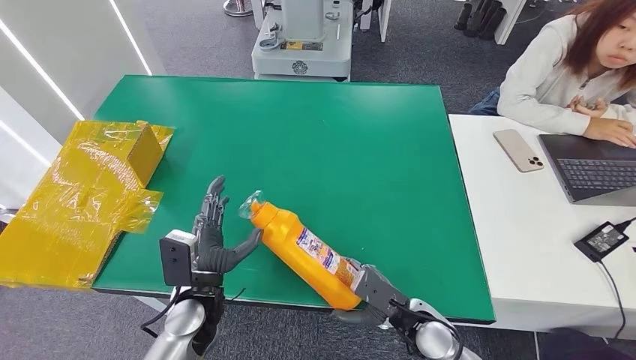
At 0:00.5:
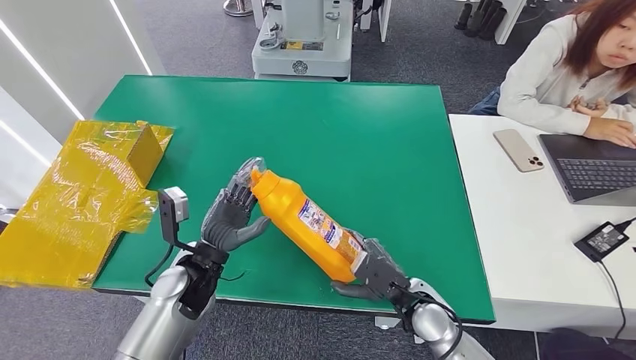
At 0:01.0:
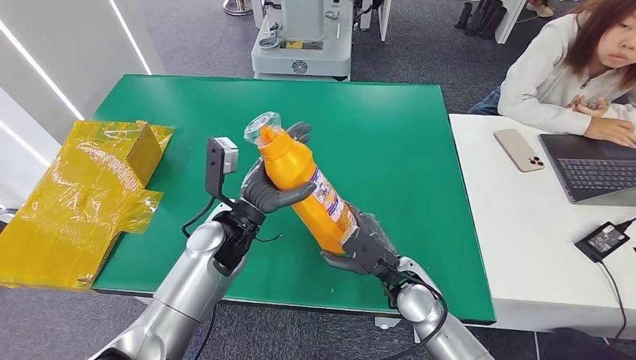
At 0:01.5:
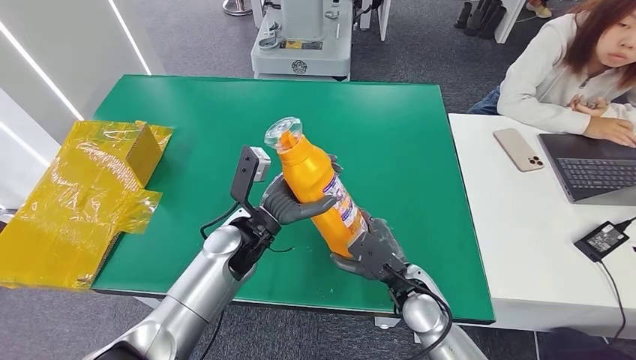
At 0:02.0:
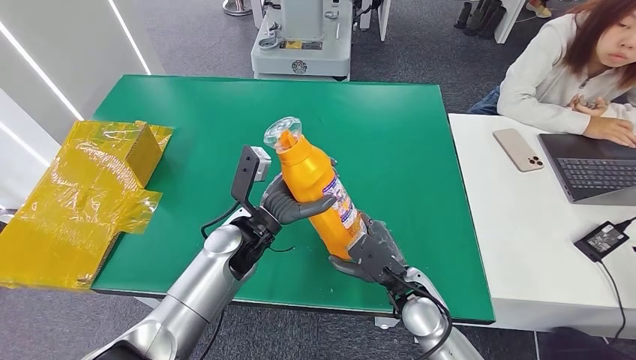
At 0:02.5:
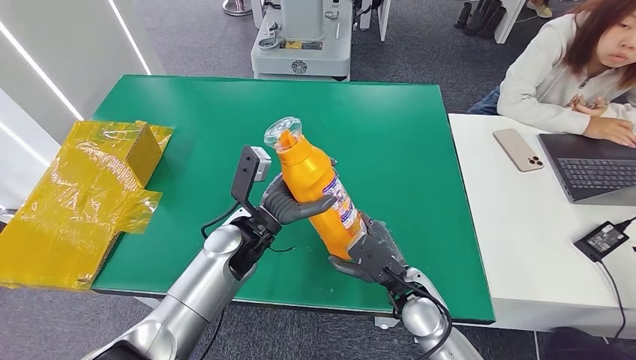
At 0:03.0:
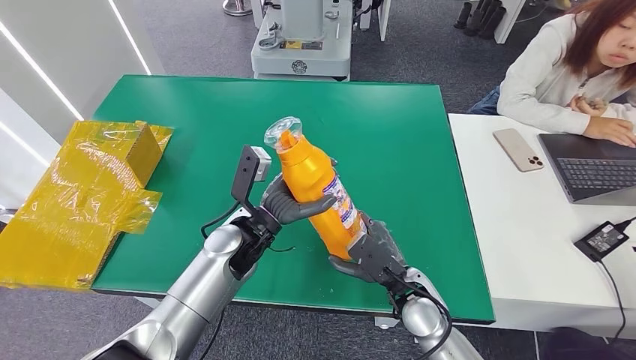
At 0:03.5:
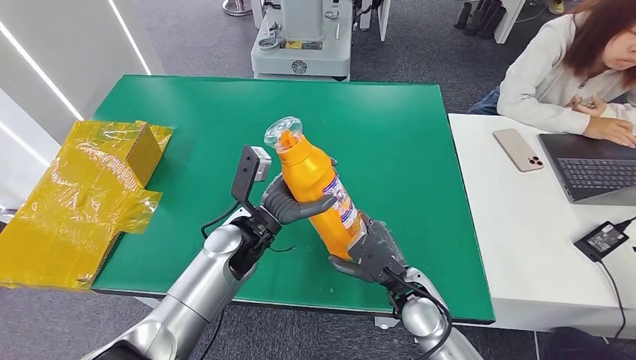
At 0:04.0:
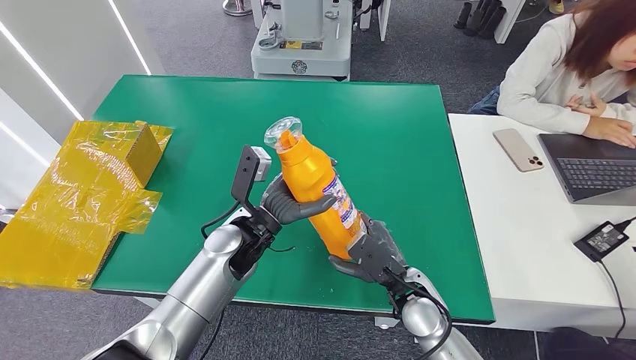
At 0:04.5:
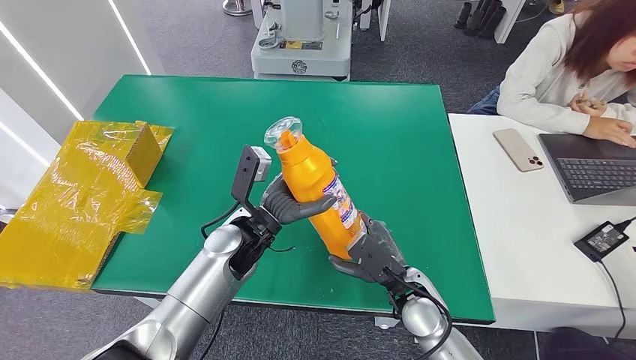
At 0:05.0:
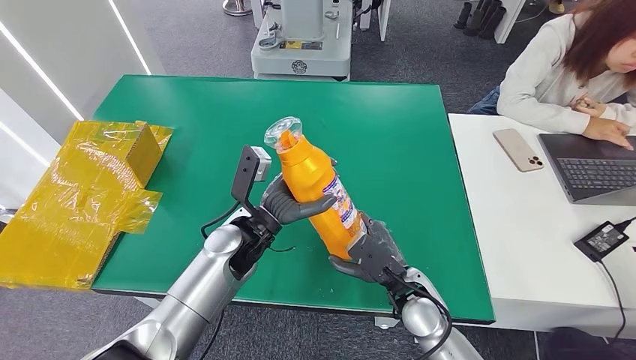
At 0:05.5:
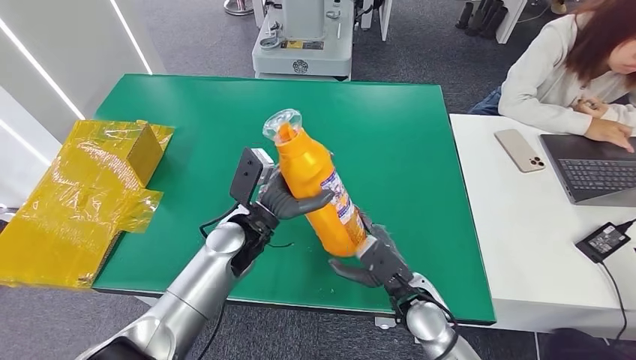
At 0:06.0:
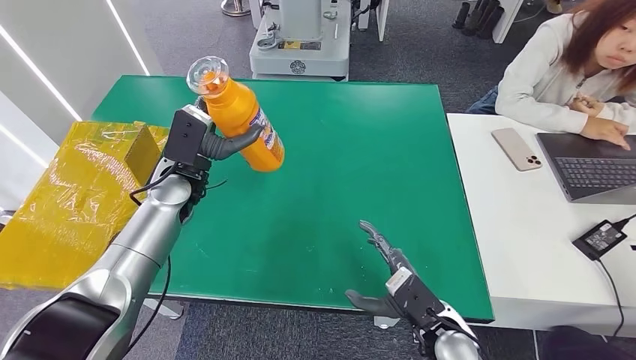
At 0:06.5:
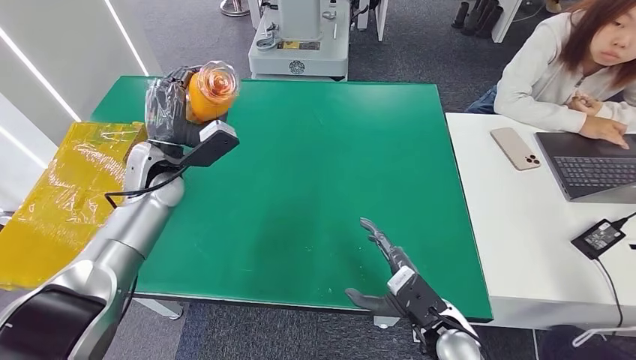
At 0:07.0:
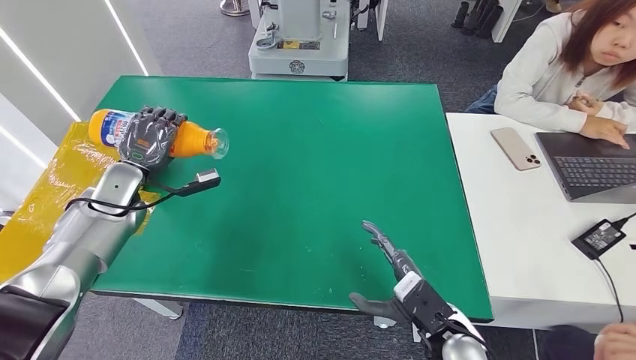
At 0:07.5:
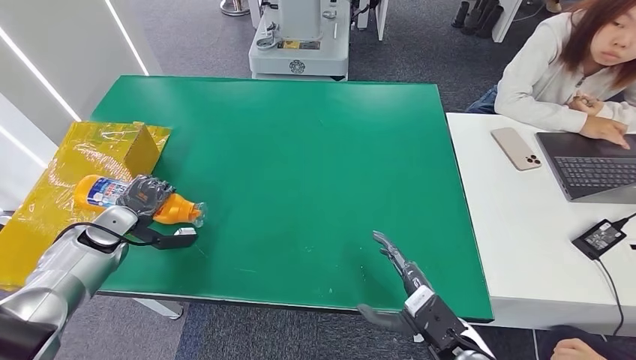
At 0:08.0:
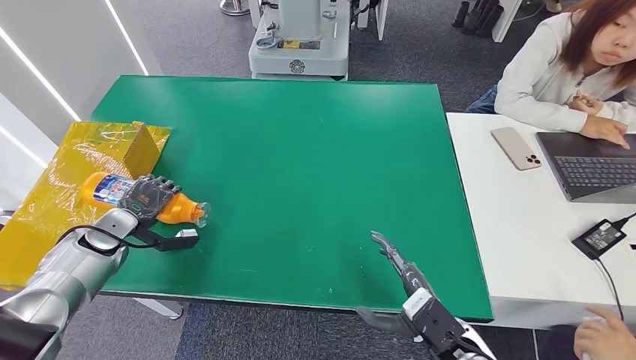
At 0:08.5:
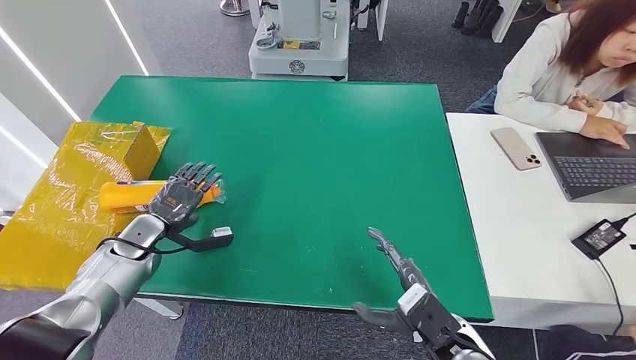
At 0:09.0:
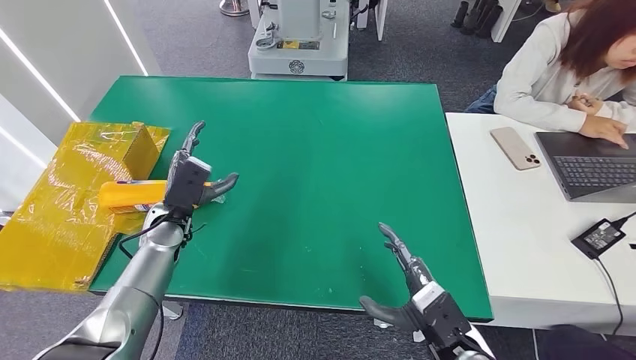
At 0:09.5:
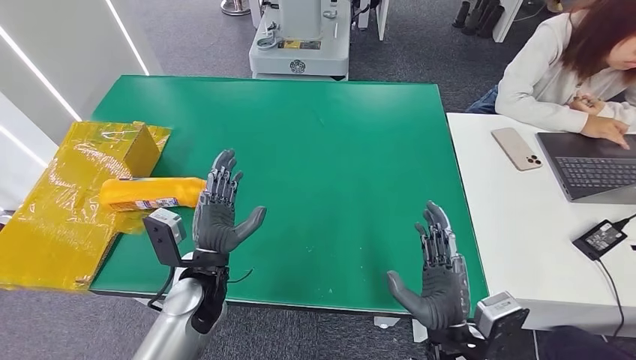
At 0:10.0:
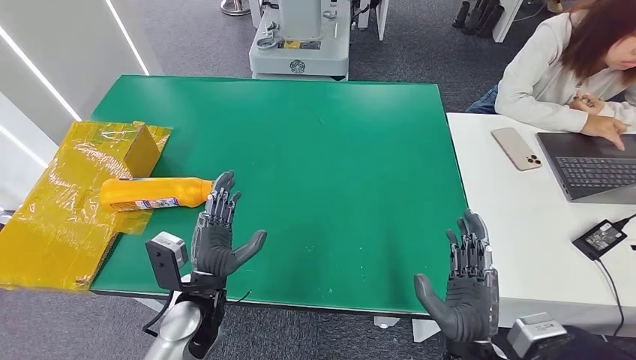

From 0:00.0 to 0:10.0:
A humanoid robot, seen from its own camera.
Step, from 0:02.5 to 0:10.0: Turn the bottle to the front side.
From 0:00.0 to 0:02.0: The right hand ends up roughly 5 cm from where it was, while the left hand travels forward, upward and to the right by roughly 15 cm.
From 0:02.0 to 0:04.0: Neither hand changes place.
From 0:06.0 to 0:08.0: The left hand heads to the left and downward, covering about 25 cm.
From 0:08.0 to 0:10.0: The left hand travels to the right and backward by about 30 cm; the right hand moves approximately 5 cm.
